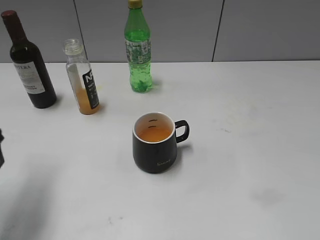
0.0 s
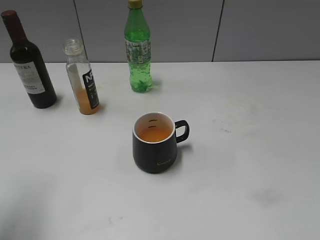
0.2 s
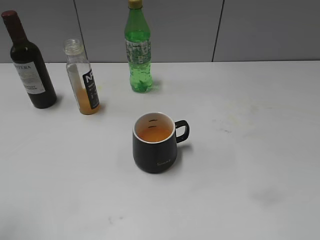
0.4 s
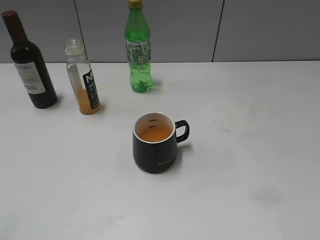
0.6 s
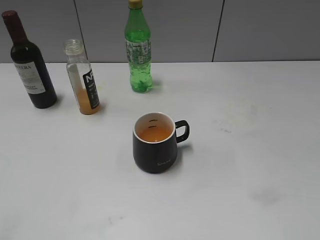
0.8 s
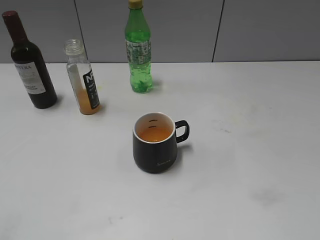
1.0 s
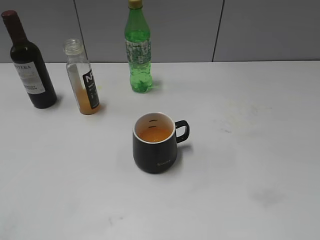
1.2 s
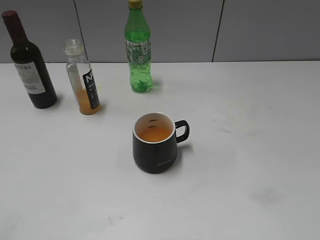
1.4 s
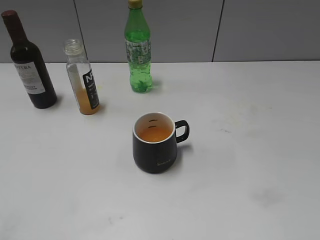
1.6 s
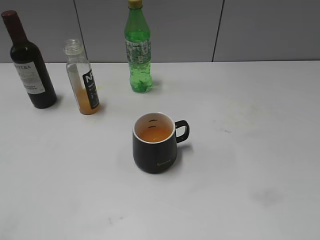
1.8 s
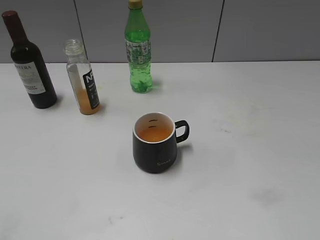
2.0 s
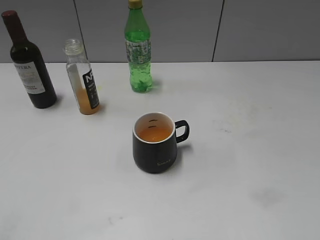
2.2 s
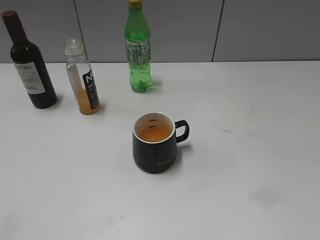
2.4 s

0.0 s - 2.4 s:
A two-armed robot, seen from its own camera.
0.0 s - 1.2 s: The left gripper travels backward by roughly 25 cm.
